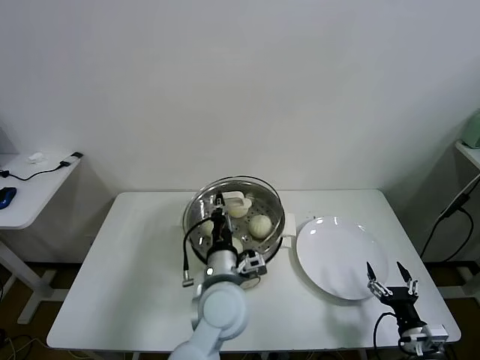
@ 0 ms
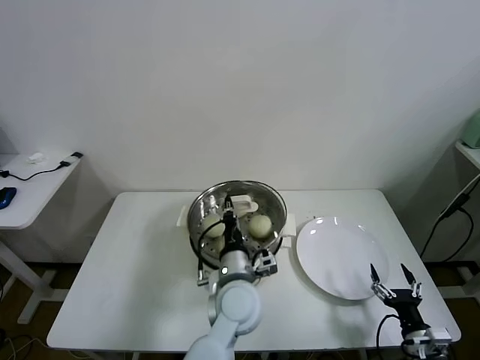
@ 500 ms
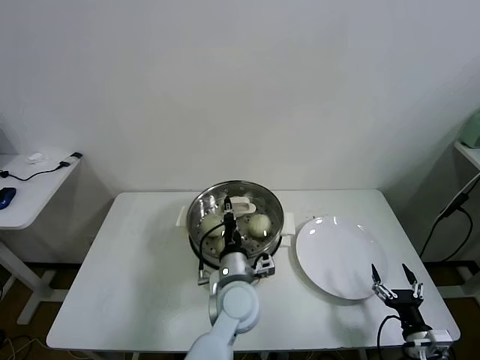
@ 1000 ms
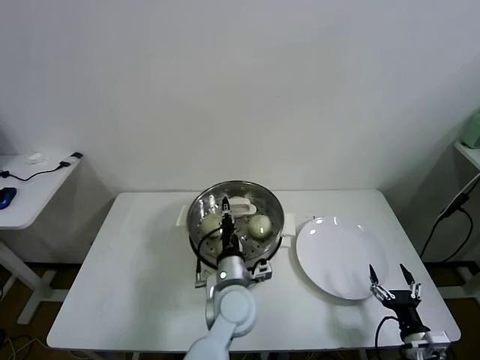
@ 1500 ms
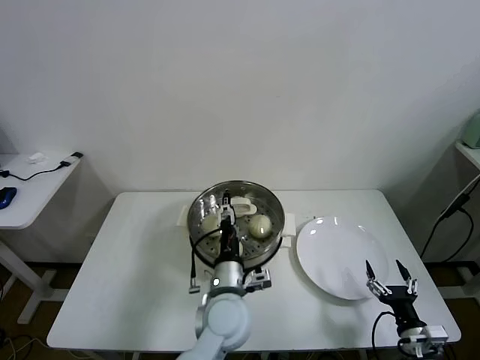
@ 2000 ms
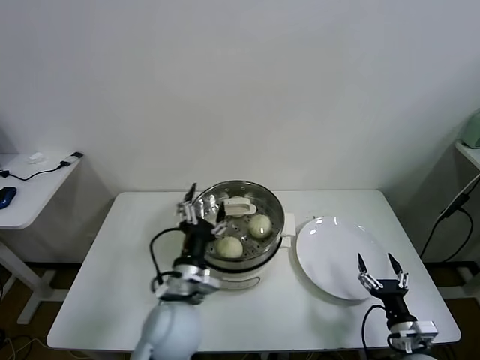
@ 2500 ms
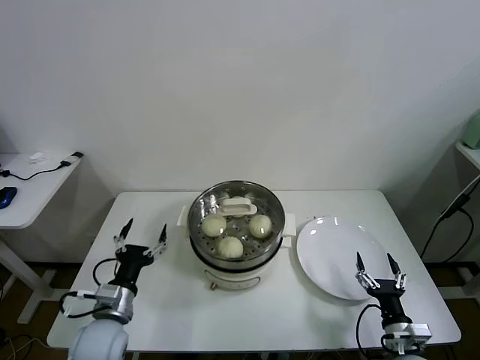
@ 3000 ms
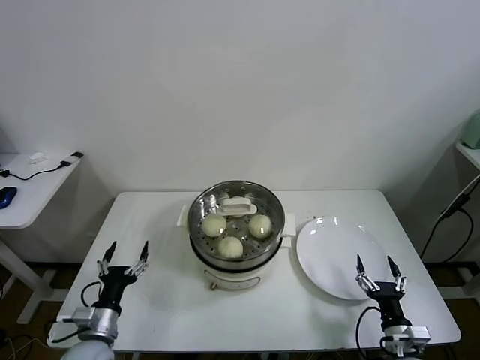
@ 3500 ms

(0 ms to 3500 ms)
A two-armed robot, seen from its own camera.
Task of the whole recording: take steamed baozi put them in steamer.
Step, 0 ms - 2000 ms: Place the pot lid on the steamer with left gripper.
0 ms - 2000 ms: The left gripper opens up.
2000 ms - 3500 ms: The left gripper goes about 30 cm to the left.
